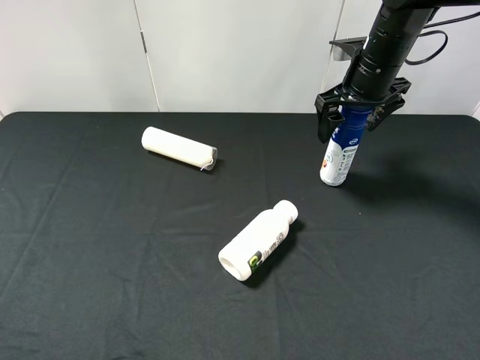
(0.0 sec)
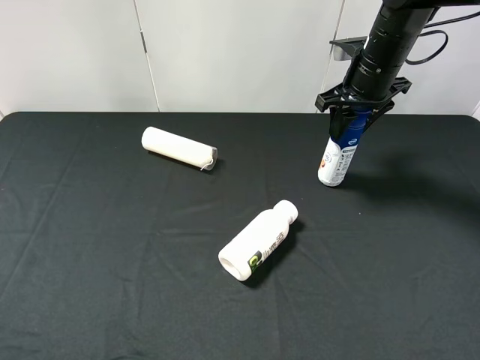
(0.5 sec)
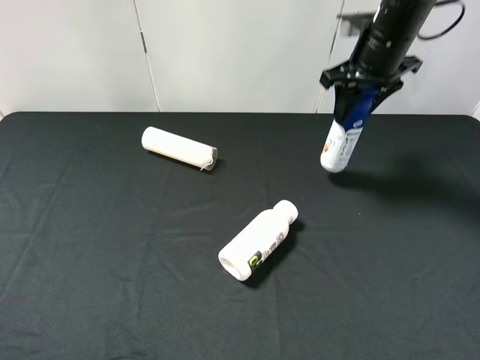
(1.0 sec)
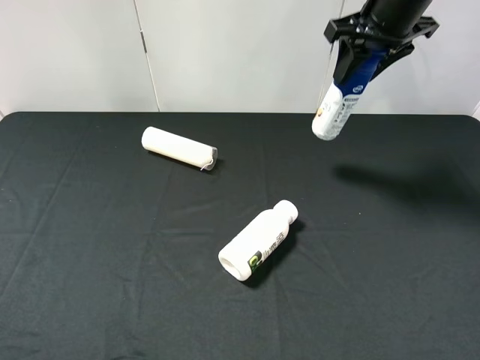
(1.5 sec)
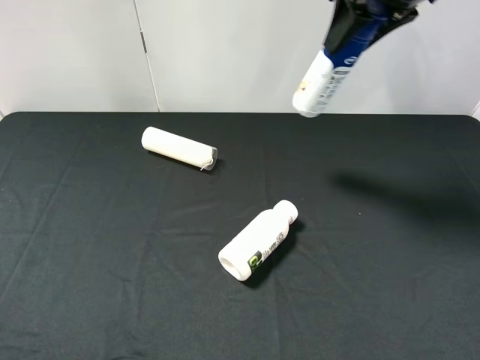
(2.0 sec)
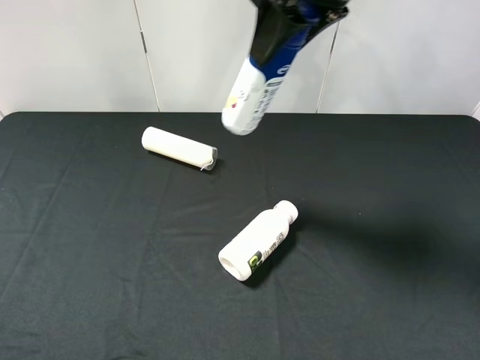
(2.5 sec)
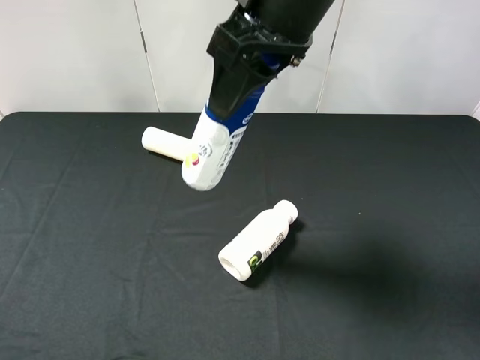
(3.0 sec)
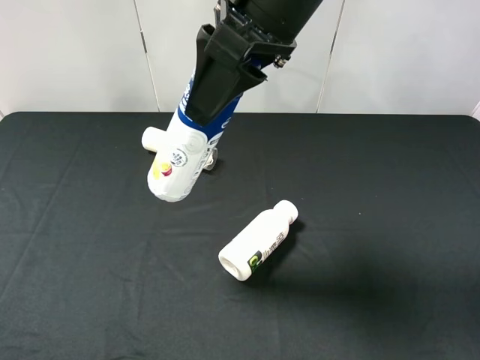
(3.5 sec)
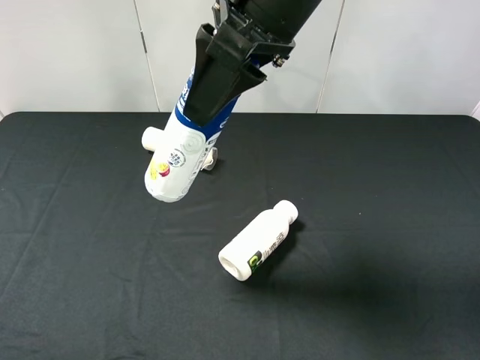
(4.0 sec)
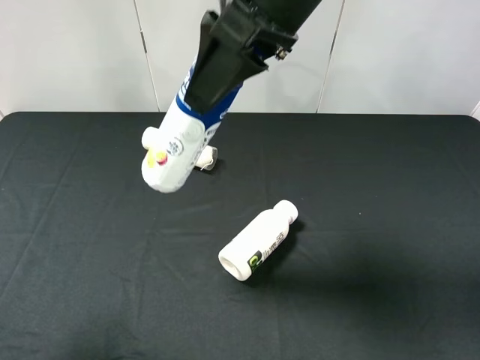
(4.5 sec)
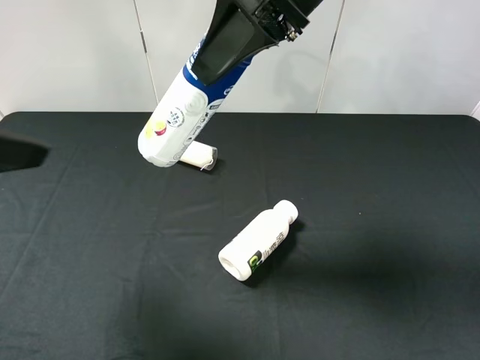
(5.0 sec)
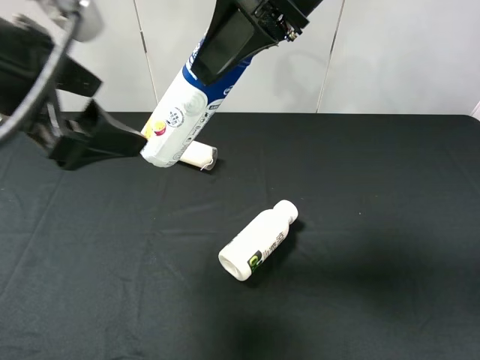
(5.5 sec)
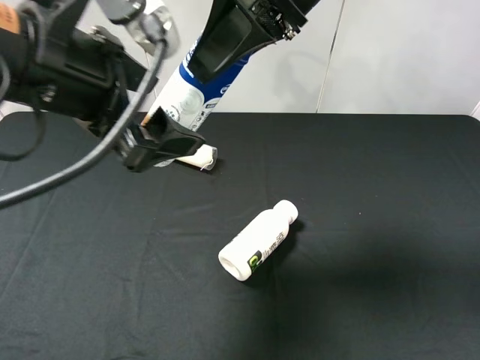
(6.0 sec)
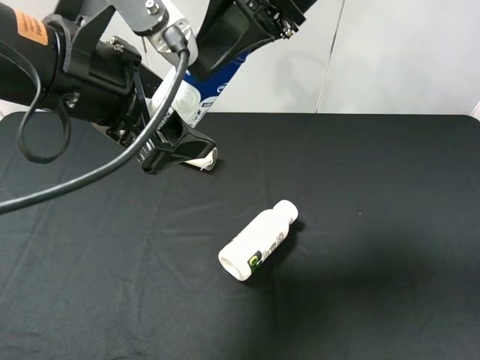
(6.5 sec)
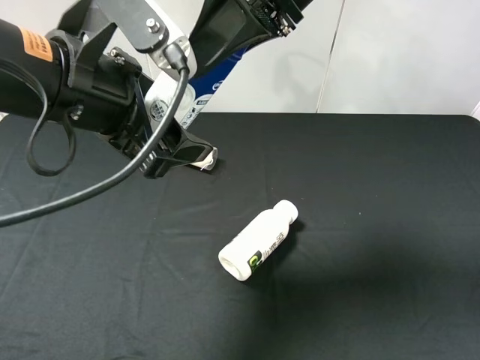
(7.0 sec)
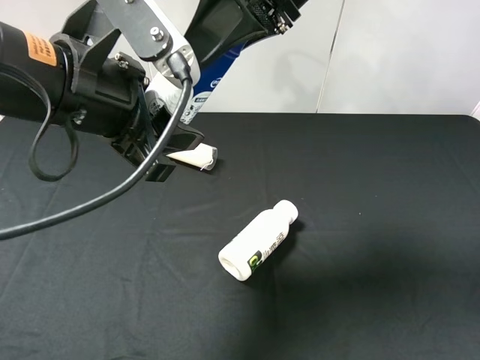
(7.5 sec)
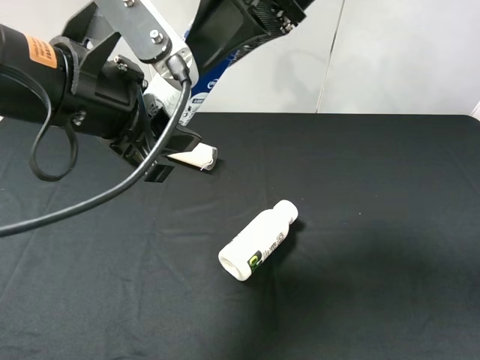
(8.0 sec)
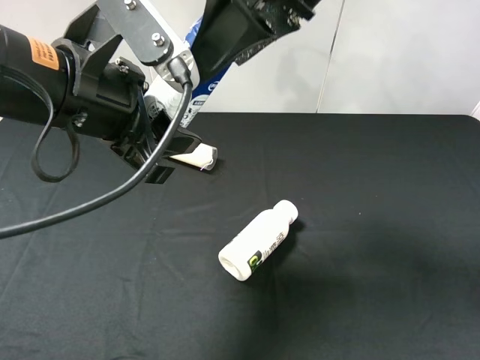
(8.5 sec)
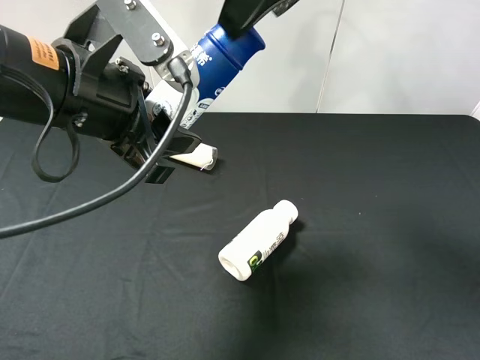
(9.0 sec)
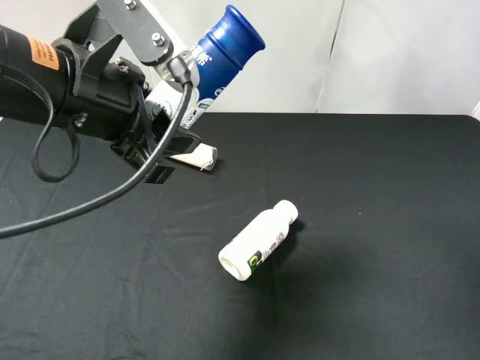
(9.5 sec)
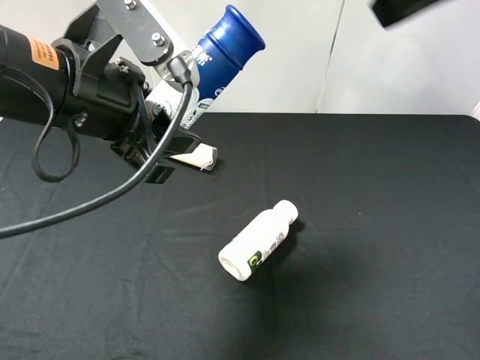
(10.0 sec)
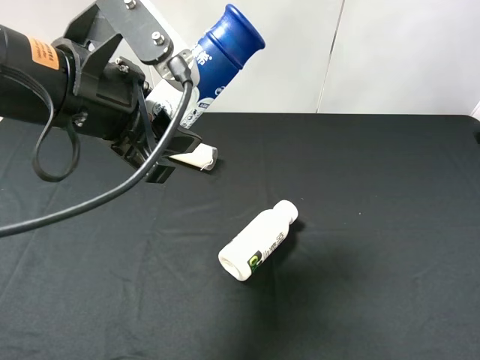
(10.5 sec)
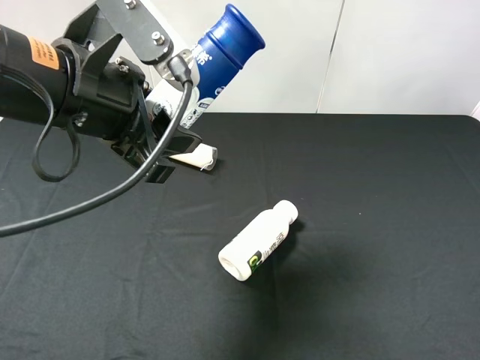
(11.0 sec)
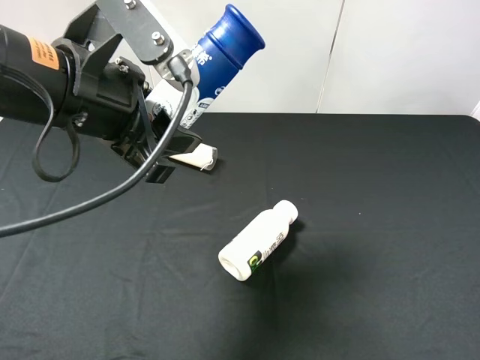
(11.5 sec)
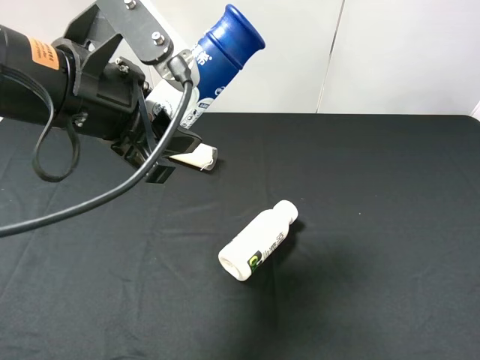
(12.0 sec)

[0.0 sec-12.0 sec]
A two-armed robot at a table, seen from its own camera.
Task of the whole recording: use the right gripper to pick up the item and transfer it from the right gripper to the left gripper.
Step, 1.0 sec to 8.5 sec: Pass the yogurt to the left gripper.
0.0 sec to 2.0 sec: The right gripper shifts about 15 cm upward and backward, and closes.
2.0 sec to 4.0 sec: The right gripper heads to the left and backward, covering roughly 15 cm. The left gripper moves some 5 cm.
4.0 sec to 6.0 sec: The left gripper is displaced to the right and forward by roughly 25 cm.
6.0 sec to 8.0 sec: The left gripper closes; the right gripper opens its fingers.
8.0 sec to 10.0 sec: The right gripper heads to the right, backward and upward, covering approximately 15 cm.
10.0 sec to 12.0 sec: The right gripper moves downward, backward and to the right, some 25 cm.

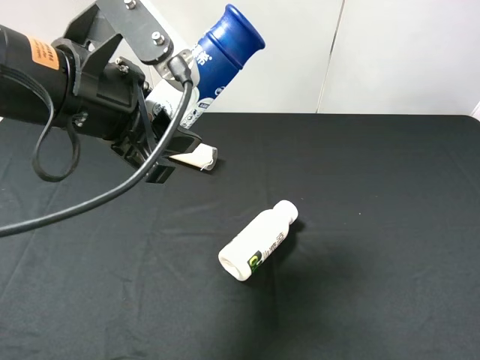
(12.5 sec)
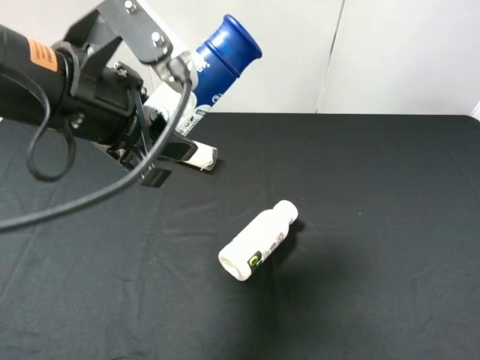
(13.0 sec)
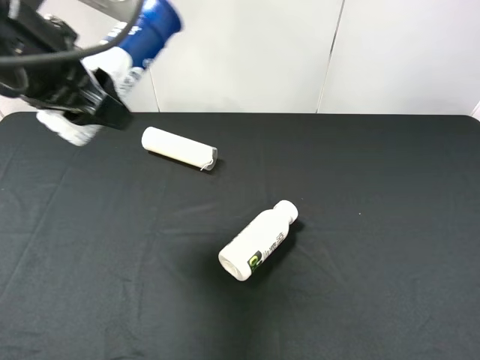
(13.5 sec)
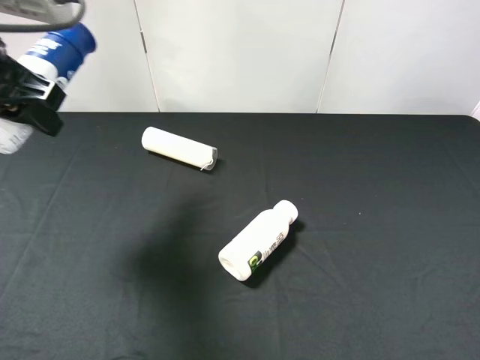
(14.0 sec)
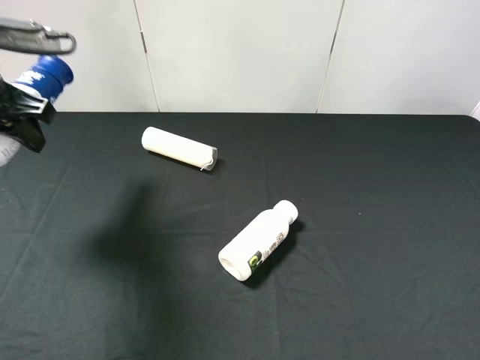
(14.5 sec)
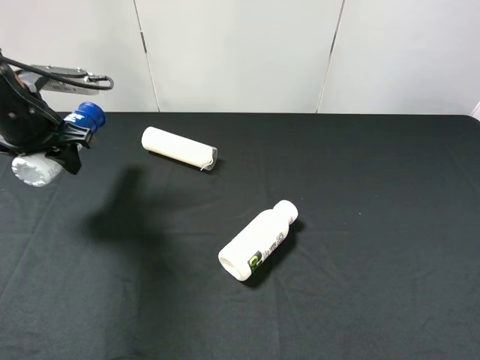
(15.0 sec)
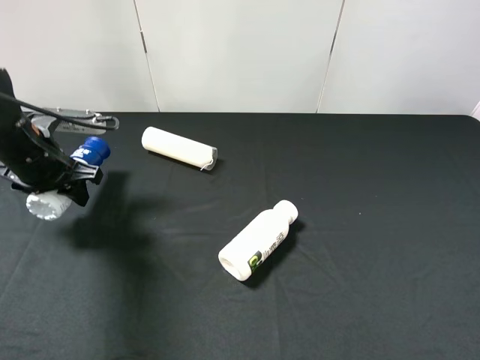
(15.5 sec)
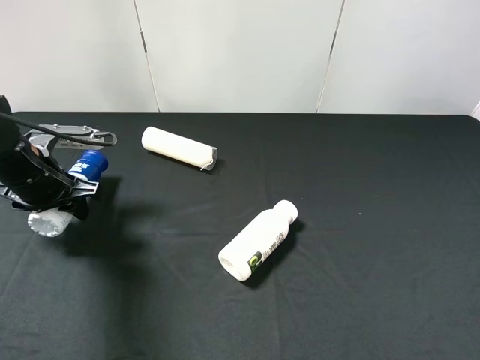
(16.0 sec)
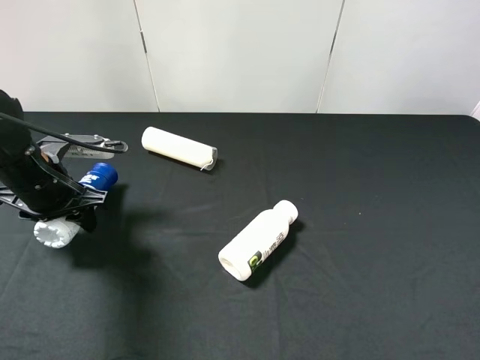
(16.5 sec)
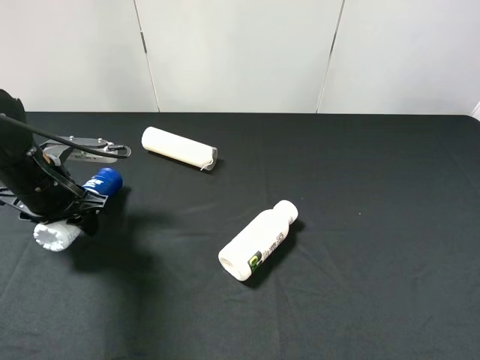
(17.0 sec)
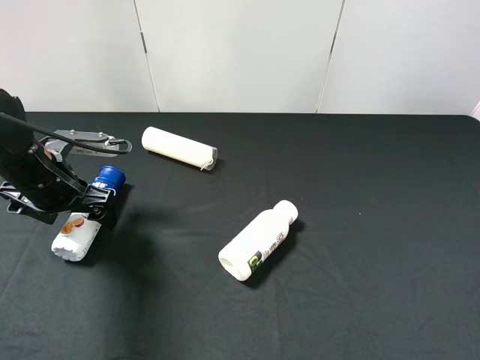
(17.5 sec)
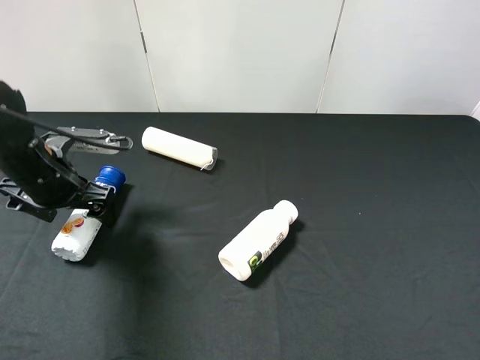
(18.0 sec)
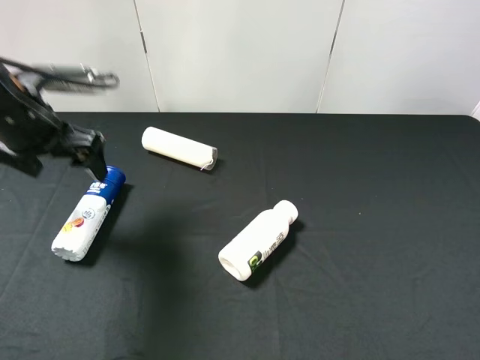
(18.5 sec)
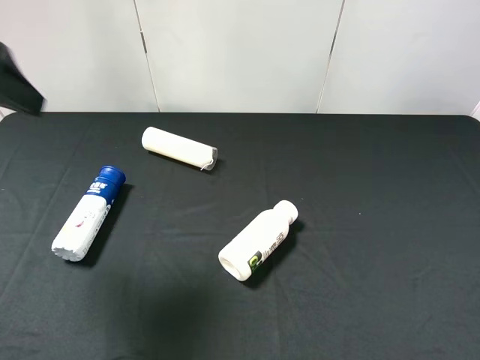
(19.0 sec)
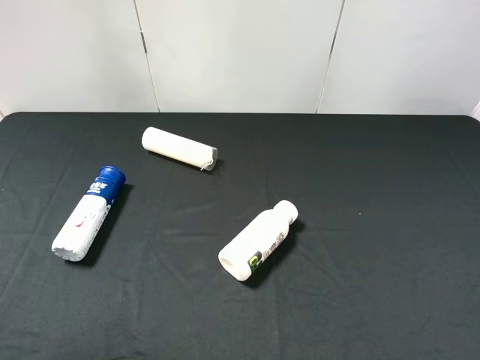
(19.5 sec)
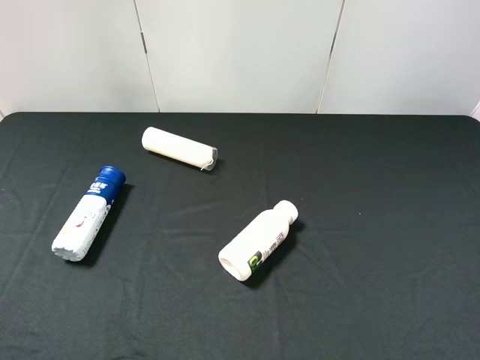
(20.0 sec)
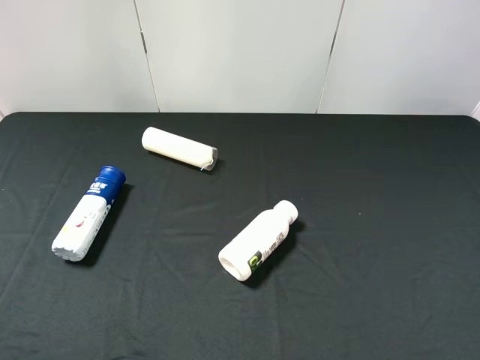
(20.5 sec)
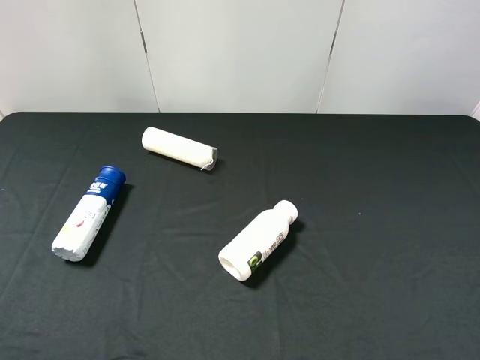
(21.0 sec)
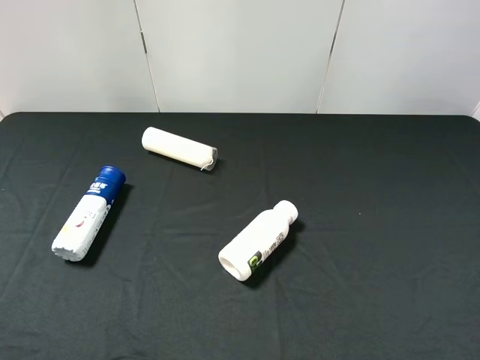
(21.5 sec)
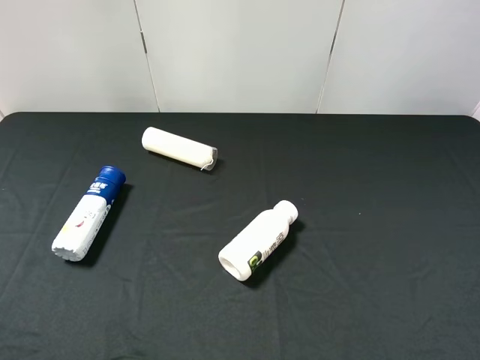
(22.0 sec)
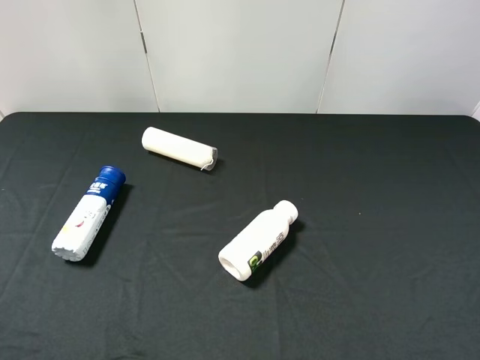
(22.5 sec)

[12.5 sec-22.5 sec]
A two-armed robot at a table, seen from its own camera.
Task of the whole recording: use the right gripper to pick up the item and transfer it from the right gripper to the left gripper.
Step, 12.5 sec to 17.5 sec: The left gripper places yogurt on the left side of the table.
12.5 sec to 14.5 sec: The left gripper heads to the left and forward, covering roughly 15 cm.
14.5 sec to 16.5 sec: The left gripper heads downward, covering some 15 cm.
16.5 sec to 18.5 sec: The left gripper travels upward by approximately 10 cm, and opens up.
18.5 sec to 20.5 sec: The left gripper is displaced backward by approximately 25 cm.
